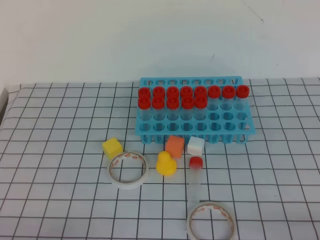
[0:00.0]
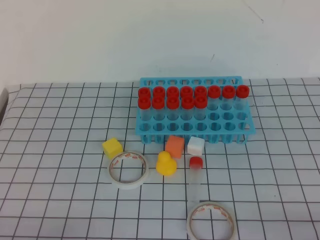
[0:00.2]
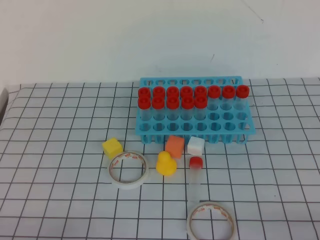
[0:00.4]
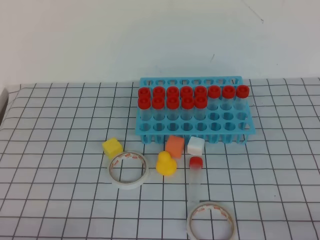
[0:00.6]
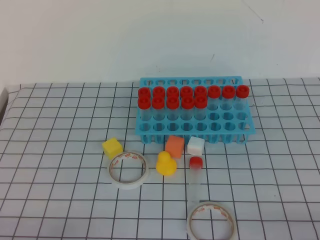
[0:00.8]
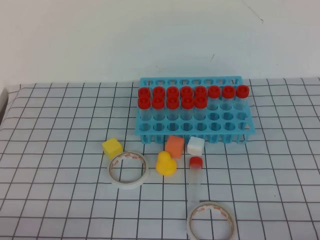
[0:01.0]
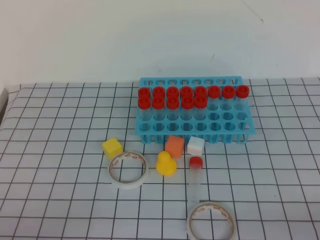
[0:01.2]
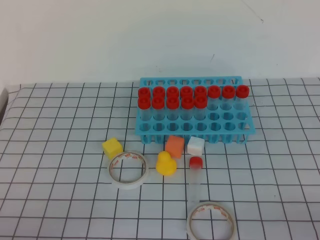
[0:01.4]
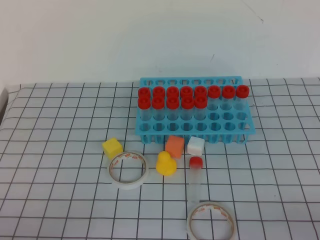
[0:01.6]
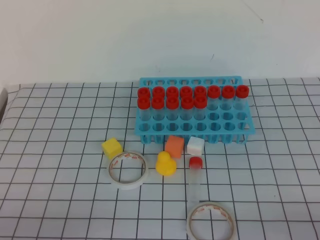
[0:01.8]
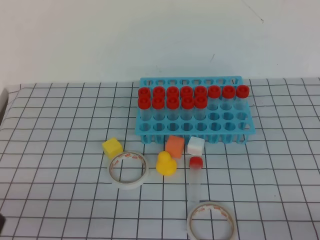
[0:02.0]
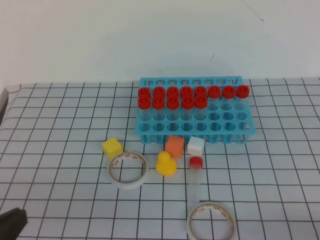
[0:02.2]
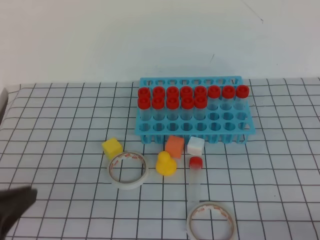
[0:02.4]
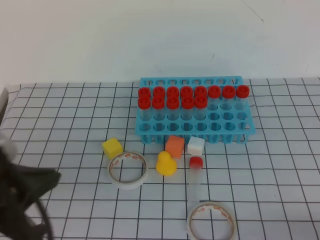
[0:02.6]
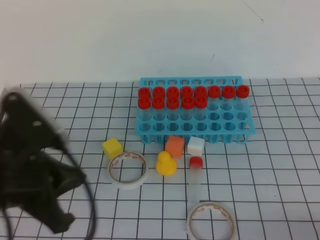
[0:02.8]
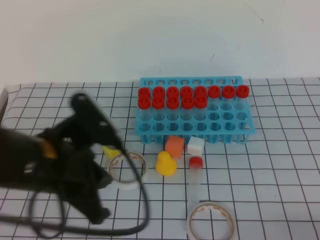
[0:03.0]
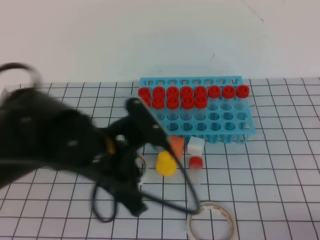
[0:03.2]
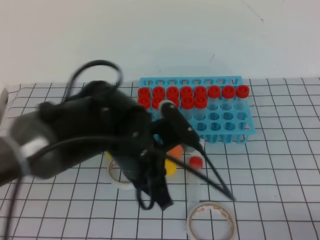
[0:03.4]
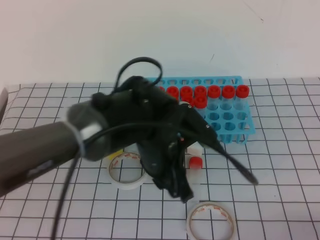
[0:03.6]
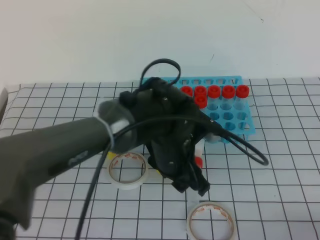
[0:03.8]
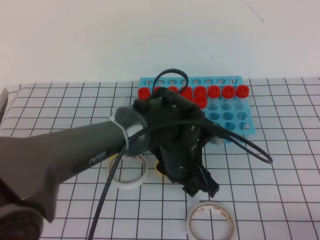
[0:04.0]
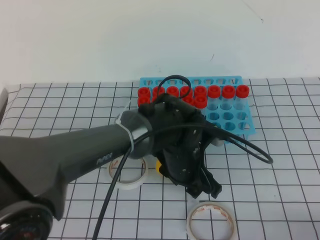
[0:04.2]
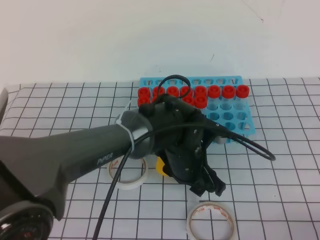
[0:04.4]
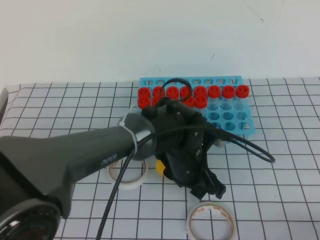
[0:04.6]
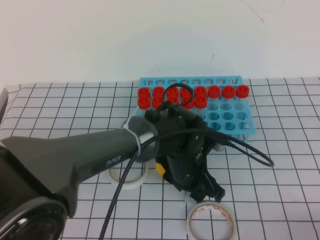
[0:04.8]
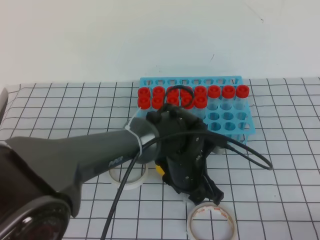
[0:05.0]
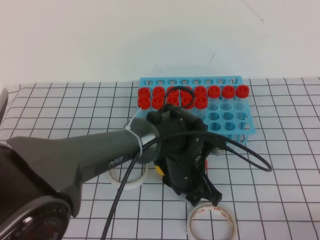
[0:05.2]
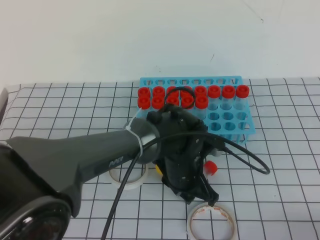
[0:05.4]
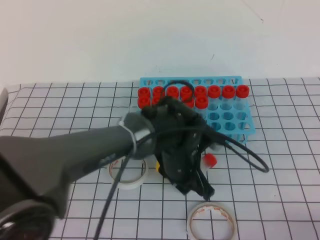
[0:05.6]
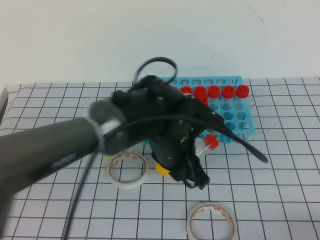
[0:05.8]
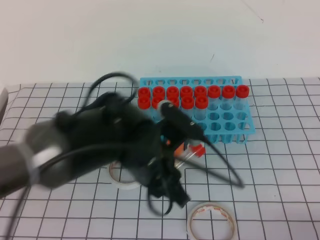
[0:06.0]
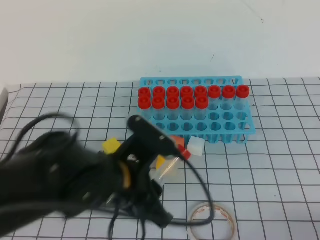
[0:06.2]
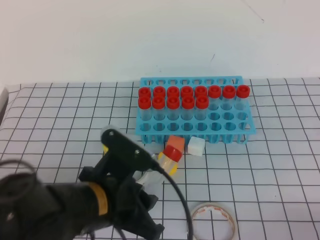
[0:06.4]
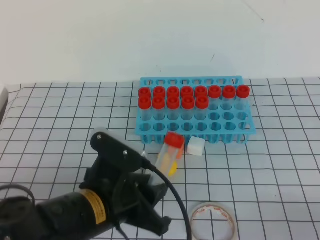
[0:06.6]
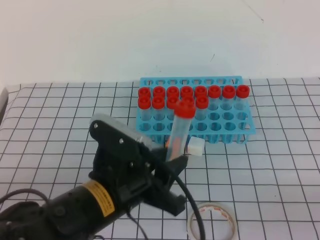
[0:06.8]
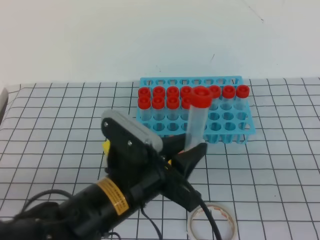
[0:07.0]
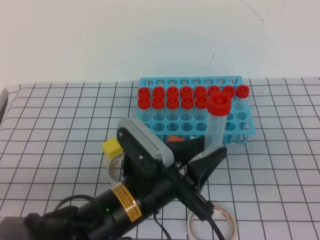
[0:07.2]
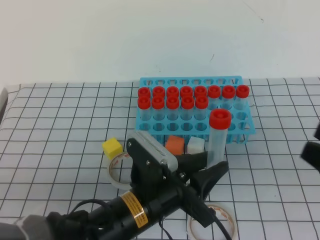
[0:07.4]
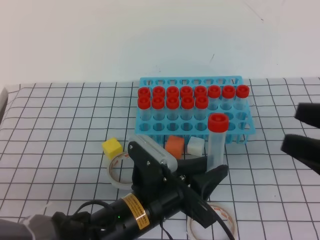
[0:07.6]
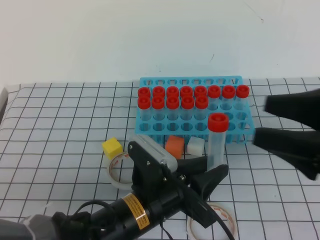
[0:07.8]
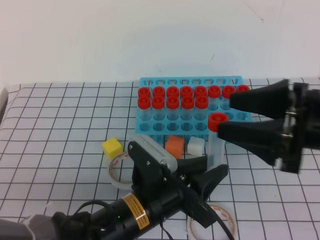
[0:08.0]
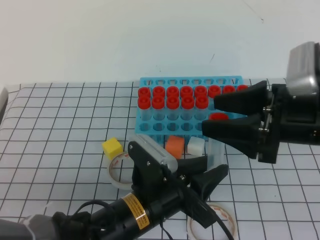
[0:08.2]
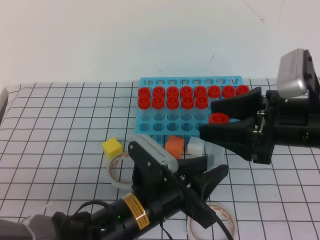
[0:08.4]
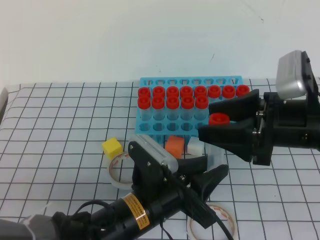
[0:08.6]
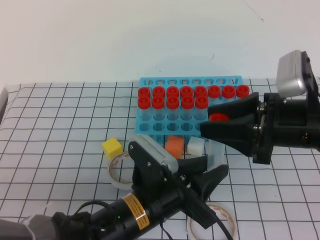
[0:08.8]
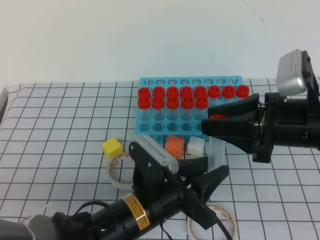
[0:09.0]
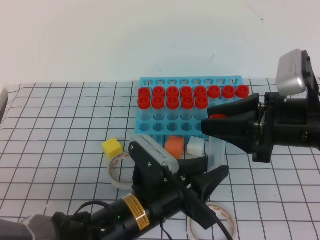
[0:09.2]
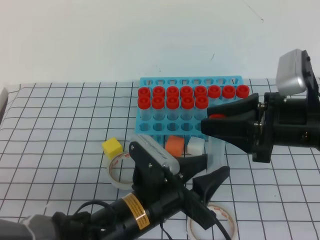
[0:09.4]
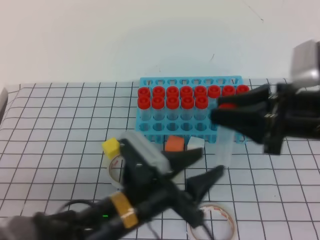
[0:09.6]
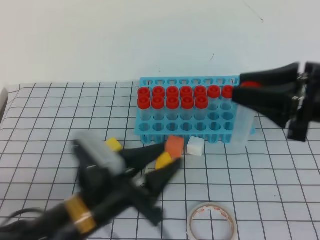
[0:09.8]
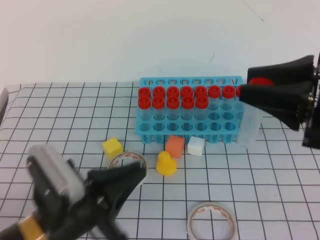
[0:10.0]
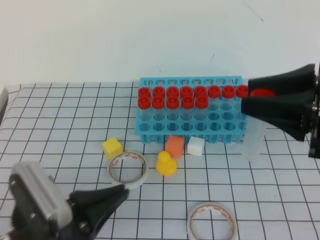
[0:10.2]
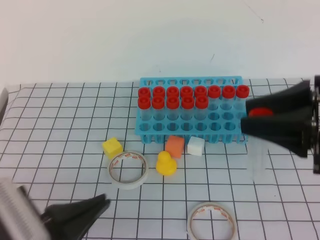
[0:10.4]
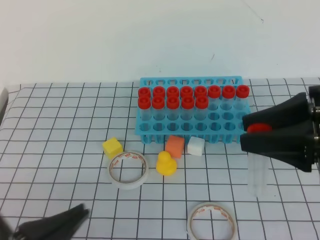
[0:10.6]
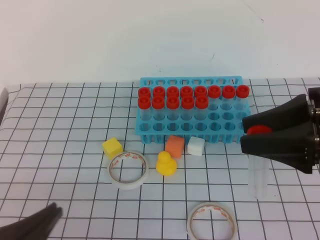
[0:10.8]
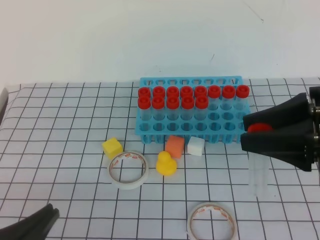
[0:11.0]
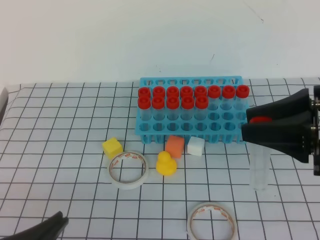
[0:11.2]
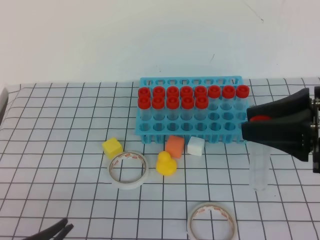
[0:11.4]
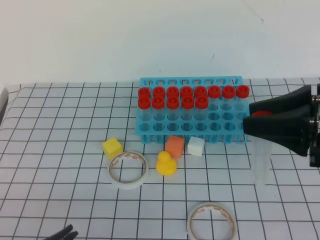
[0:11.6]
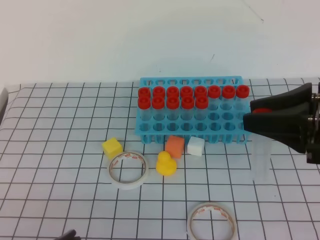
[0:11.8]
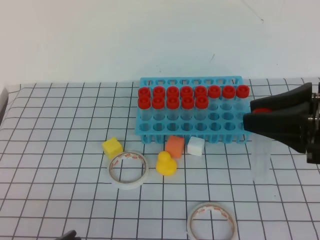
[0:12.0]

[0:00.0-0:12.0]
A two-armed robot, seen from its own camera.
0:01.6 to 0:03.0: The left gripper heads forward, to the right and upward, covering about 20 cm.
0:03.0 to 0:04.4: The left gripper travels to the right, downward and forward by approximately 25 cm, and opens up.
0:04.4 to 0:06.0: The left gripper goes roughly 10 cm upward and to the left, and closes.
0:06.0 to 0:07.6: The right gripper is displaced upward and forward by approximately 20 cm, and opens up. The left gripper travels downward and backward by roughly 10 cm.
0:07.6 to 0:09.0: The right gripper travels forward and to the left by approximately 10 cm.
0:09.0 to 0:10.4: The left gripper goes roughly 15 cm to the left and backward, and closes its fingers, while the right gripper heads upward, covering roughly 5 cm.
0:10.4 to 0:12.0: The left gripper goes some 5 cm backward.

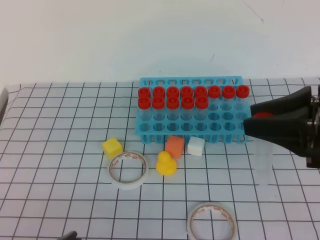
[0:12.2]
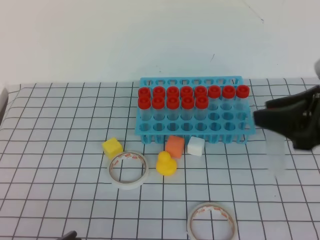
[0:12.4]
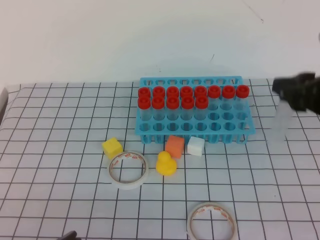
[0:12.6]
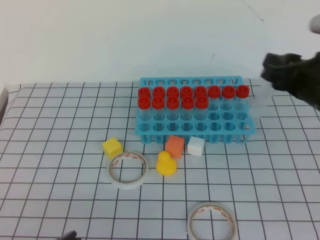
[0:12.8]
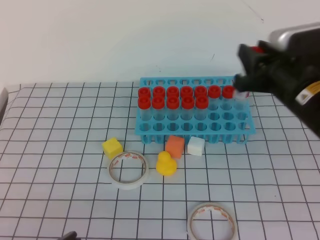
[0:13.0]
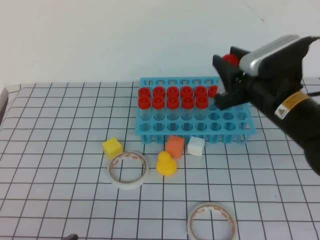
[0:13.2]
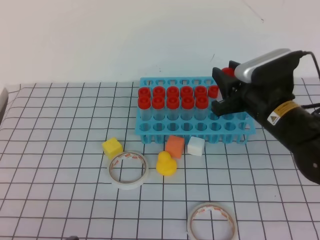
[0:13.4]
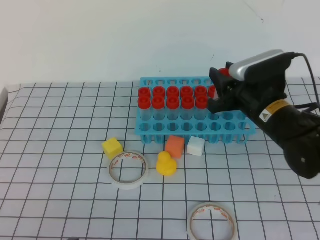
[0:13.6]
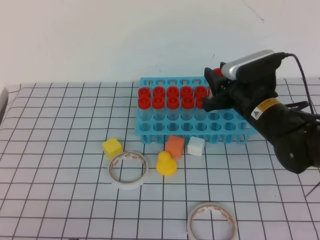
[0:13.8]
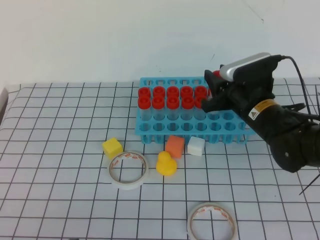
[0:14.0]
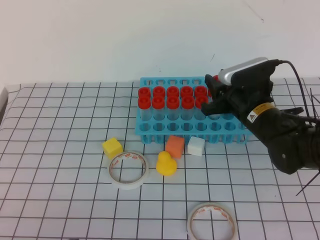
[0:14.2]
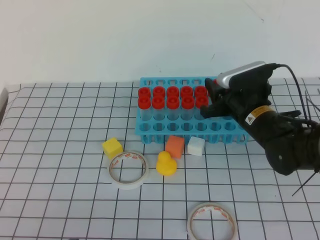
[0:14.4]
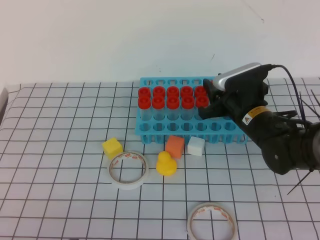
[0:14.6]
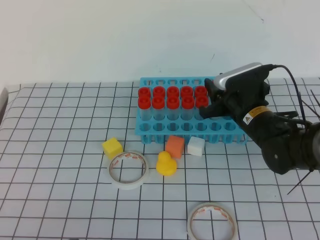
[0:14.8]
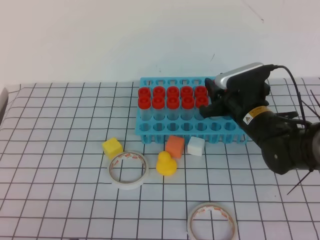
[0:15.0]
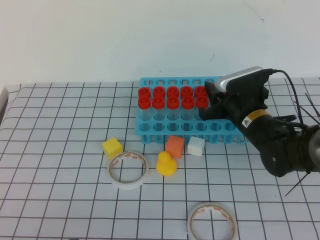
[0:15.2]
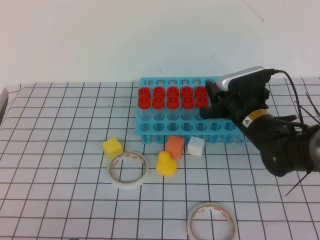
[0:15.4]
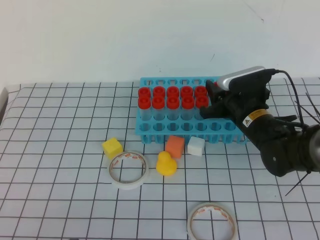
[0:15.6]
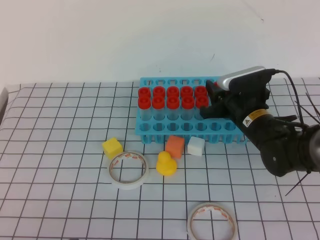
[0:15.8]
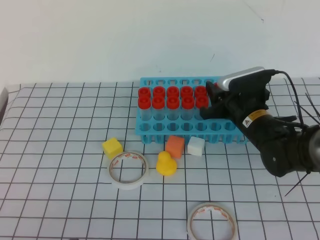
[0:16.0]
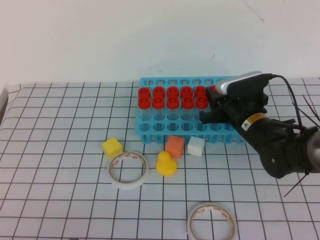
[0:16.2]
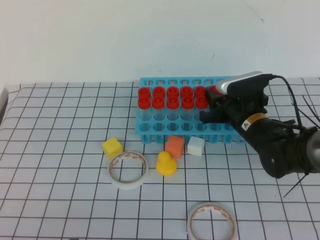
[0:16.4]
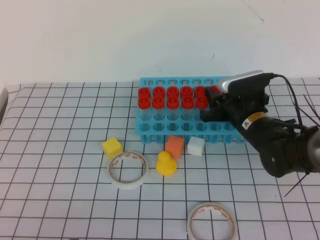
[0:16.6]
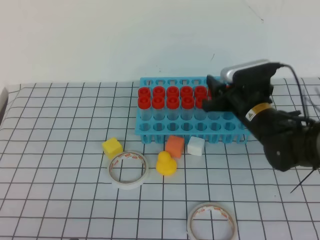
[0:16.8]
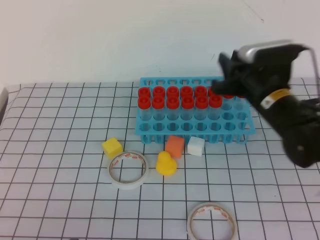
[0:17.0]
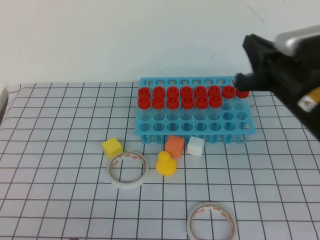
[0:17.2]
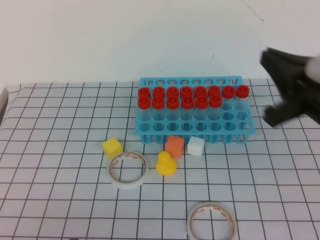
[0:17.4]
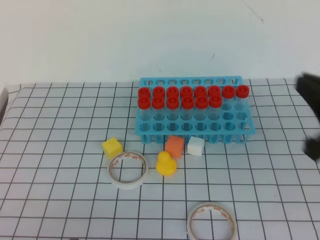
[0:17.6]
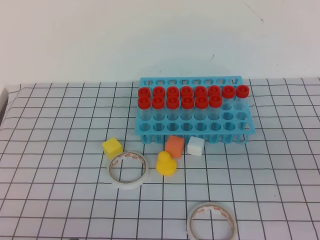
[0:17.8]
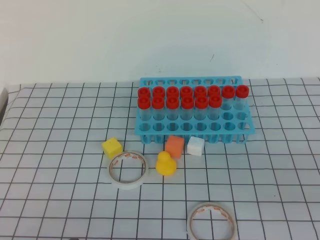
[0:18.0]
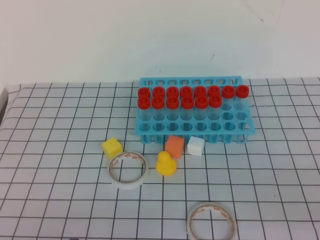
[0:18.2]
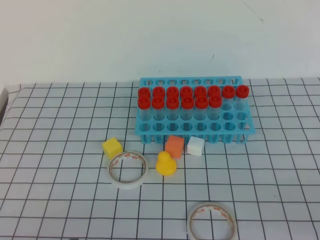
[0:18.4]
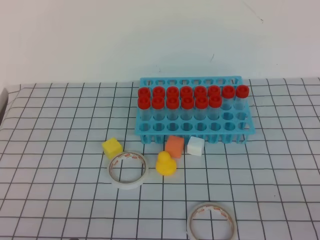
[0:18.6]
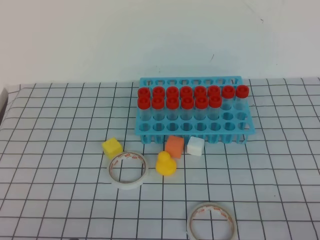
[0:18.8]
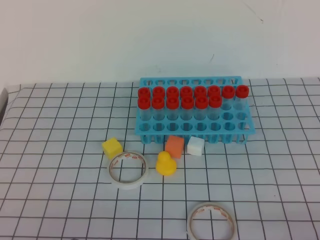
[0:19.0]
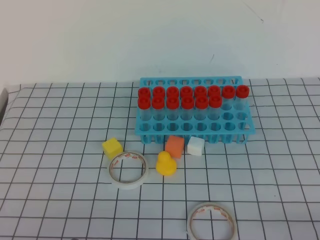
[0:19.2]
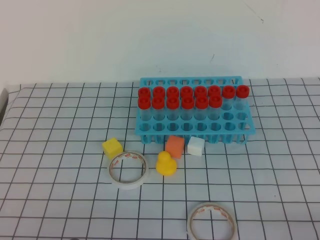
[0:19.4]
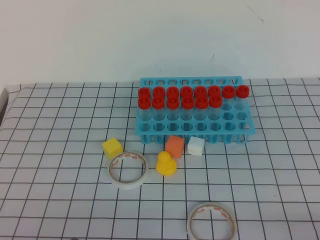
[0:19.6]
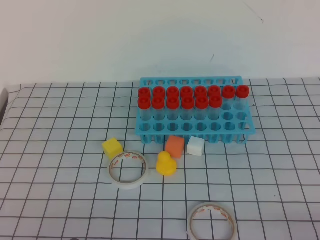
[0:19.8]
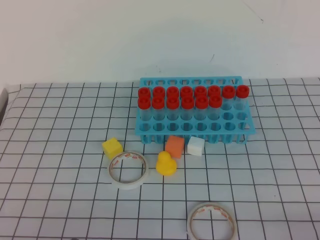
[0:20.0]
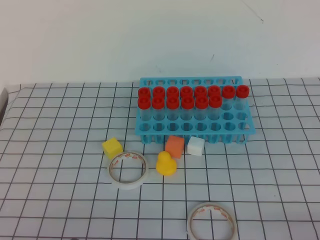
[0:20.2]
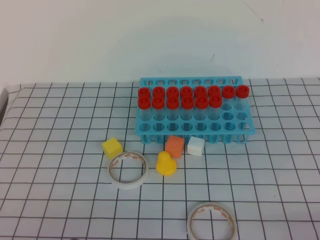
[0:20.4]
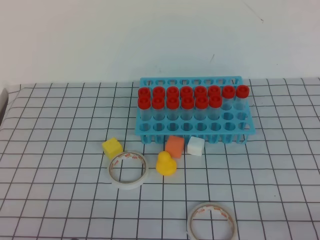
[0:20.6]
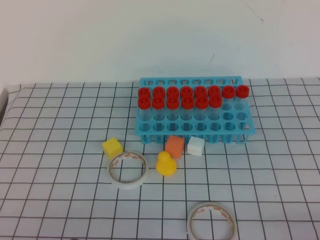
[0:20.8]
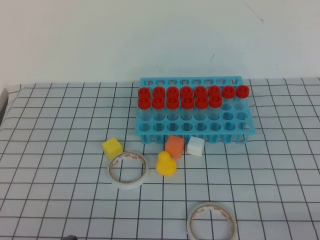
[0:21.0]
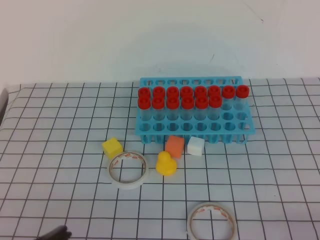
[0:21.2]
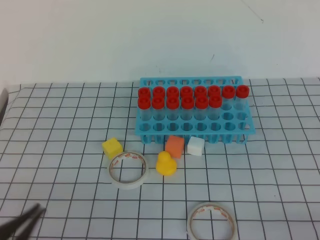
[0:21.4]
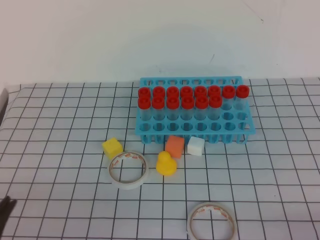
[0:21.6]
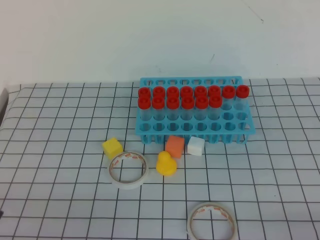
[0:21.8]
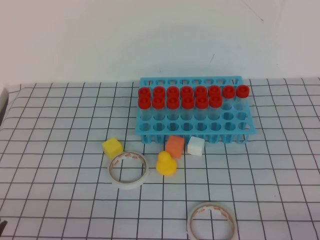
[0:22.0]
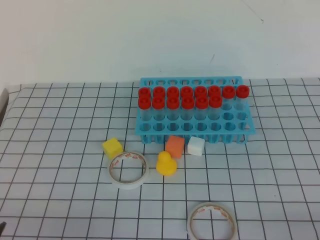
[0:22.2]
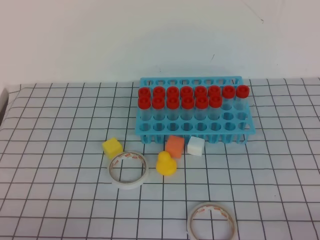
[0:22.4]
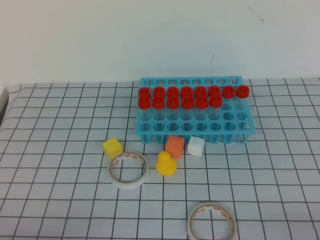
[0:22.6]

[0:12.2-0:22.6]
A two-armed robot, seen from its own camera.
0:12.2 to 0:13.6: The right gripper shifts approximately 15 cm forward, downward and to the left.
0:13.6 to 0:15.2: The right gripper moves downward, approximately 5 cm.
0:15.2 to 0:16.6: Both grippers stay about where they are.
0:16.6 to 0:18.2: The right gripper heads backward and to the right, covering about 35 cm, and closes its fingers.
